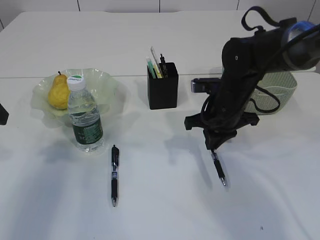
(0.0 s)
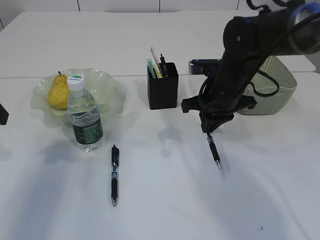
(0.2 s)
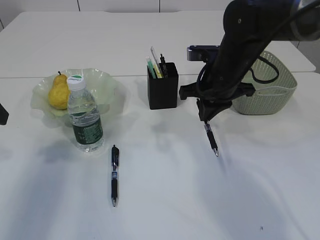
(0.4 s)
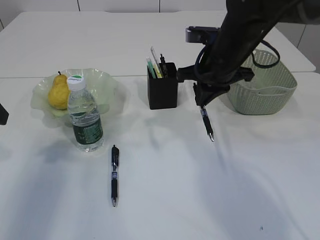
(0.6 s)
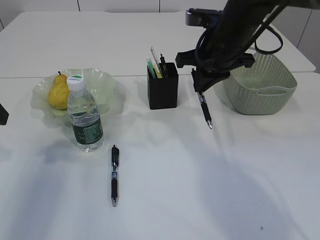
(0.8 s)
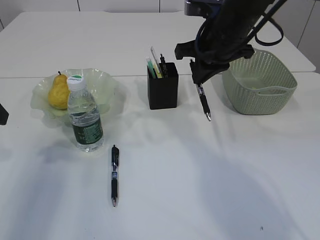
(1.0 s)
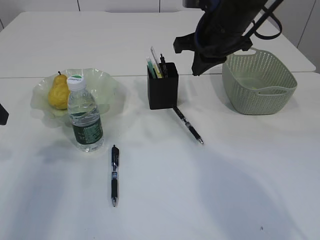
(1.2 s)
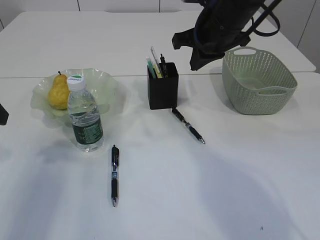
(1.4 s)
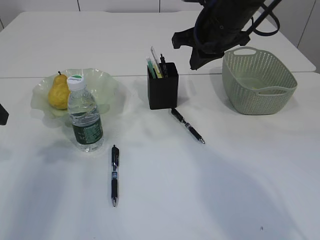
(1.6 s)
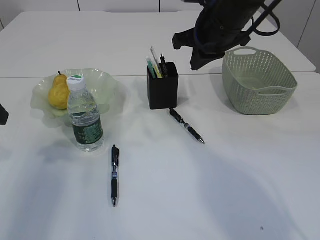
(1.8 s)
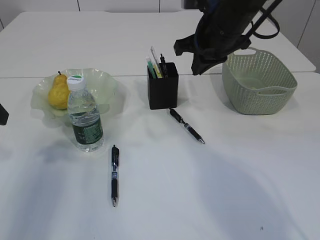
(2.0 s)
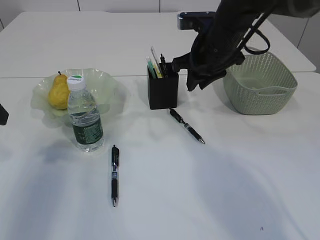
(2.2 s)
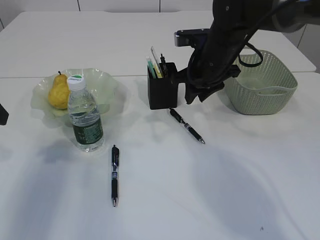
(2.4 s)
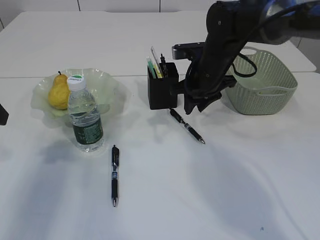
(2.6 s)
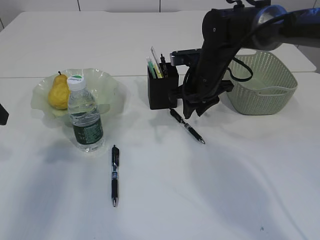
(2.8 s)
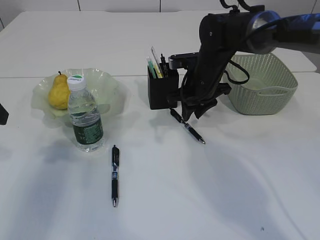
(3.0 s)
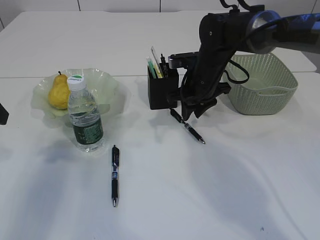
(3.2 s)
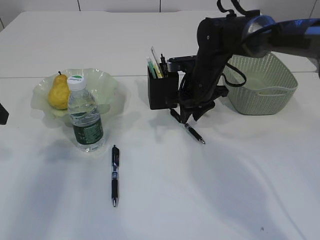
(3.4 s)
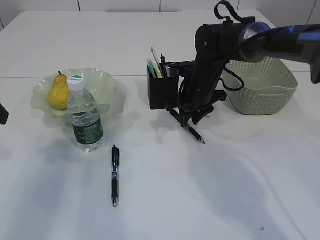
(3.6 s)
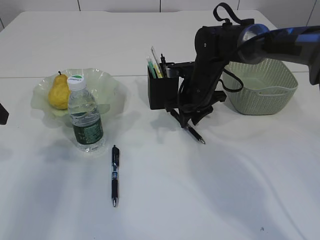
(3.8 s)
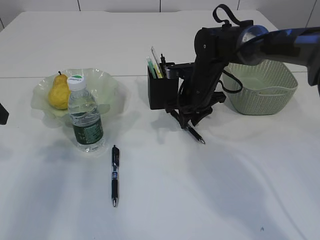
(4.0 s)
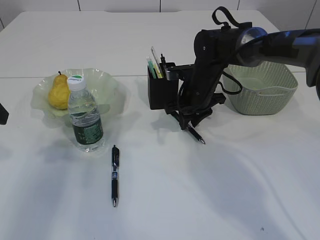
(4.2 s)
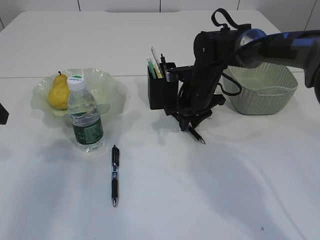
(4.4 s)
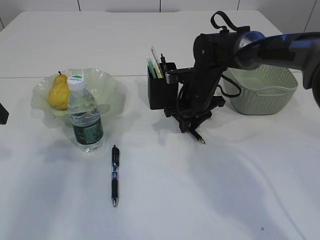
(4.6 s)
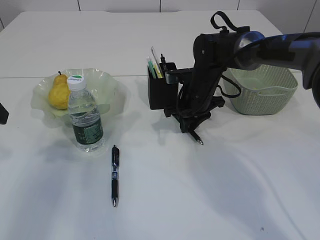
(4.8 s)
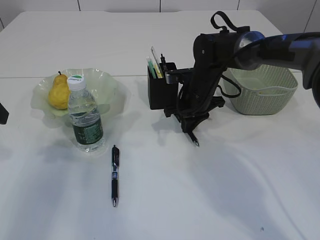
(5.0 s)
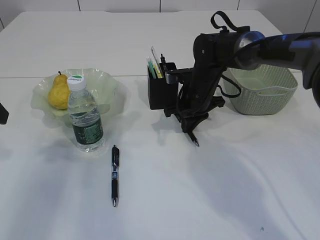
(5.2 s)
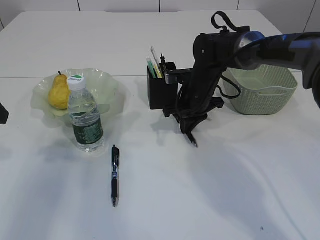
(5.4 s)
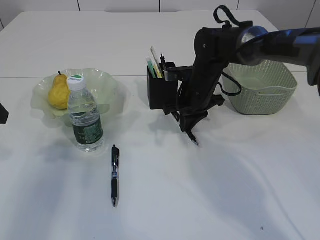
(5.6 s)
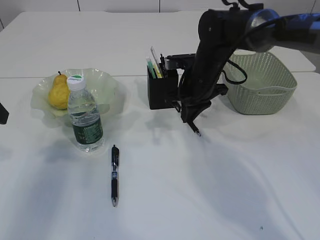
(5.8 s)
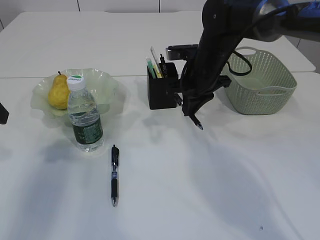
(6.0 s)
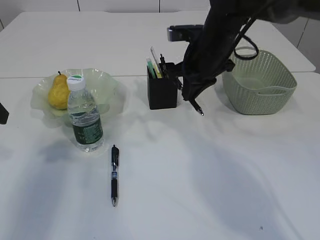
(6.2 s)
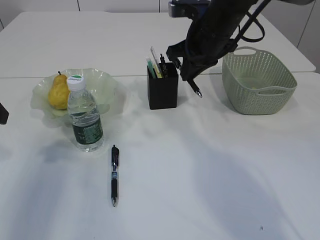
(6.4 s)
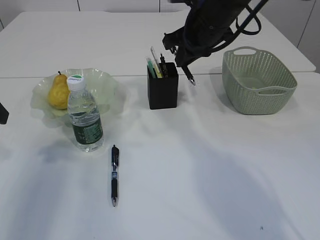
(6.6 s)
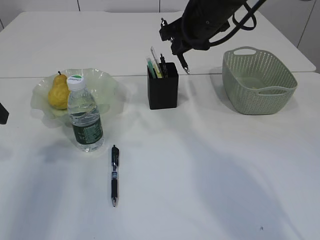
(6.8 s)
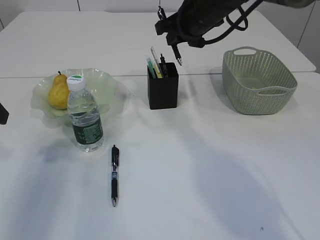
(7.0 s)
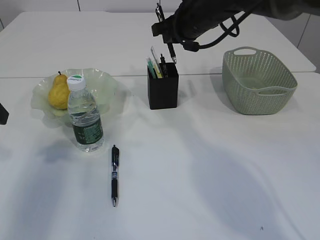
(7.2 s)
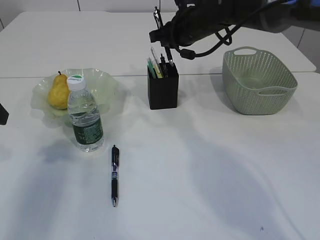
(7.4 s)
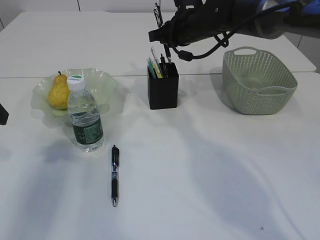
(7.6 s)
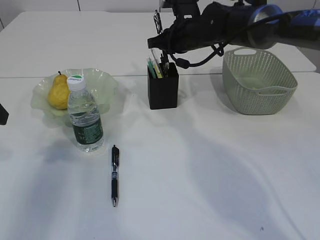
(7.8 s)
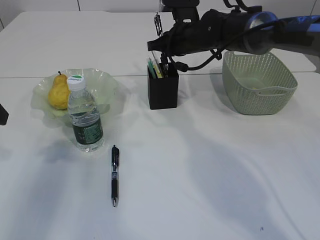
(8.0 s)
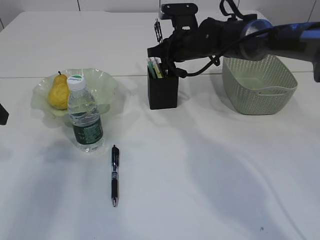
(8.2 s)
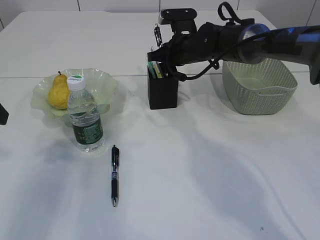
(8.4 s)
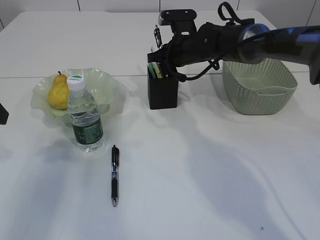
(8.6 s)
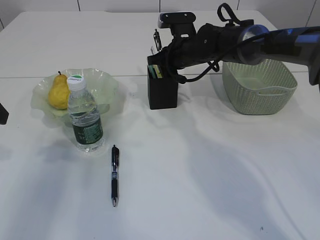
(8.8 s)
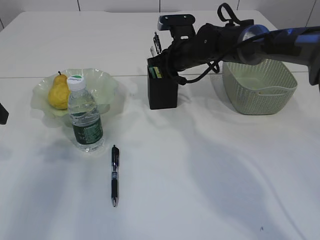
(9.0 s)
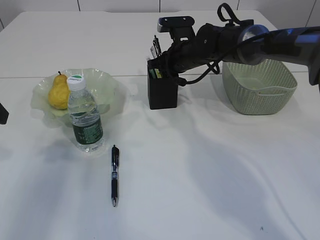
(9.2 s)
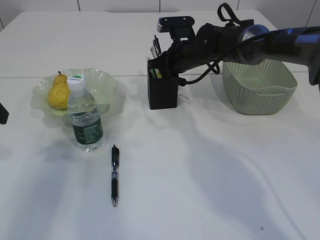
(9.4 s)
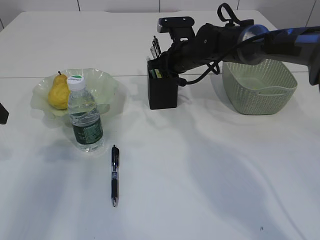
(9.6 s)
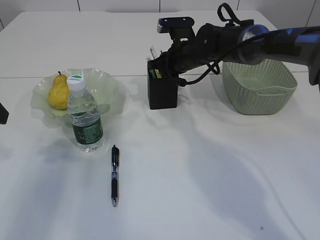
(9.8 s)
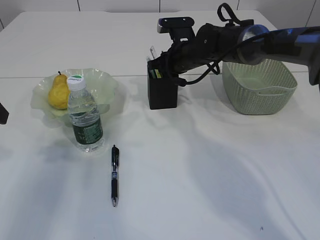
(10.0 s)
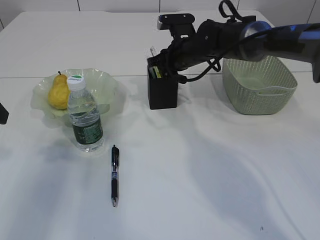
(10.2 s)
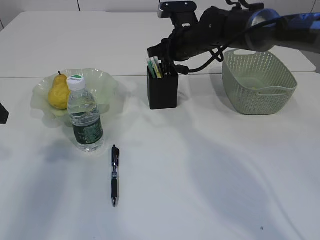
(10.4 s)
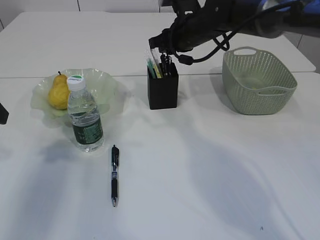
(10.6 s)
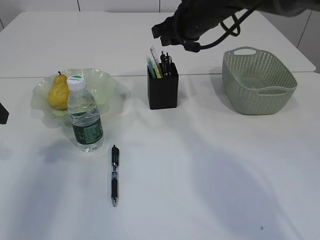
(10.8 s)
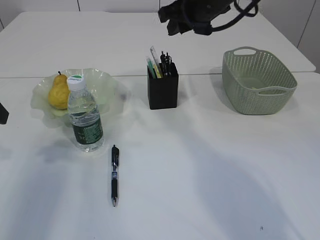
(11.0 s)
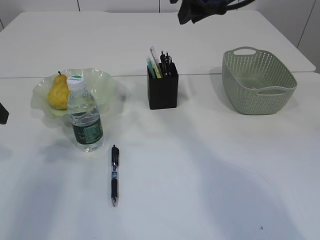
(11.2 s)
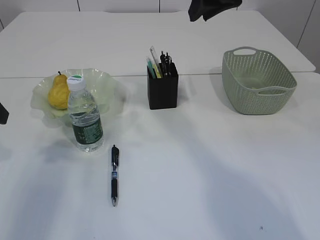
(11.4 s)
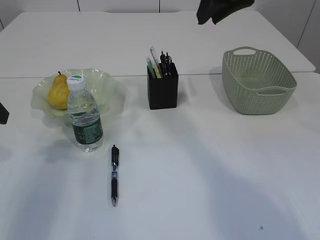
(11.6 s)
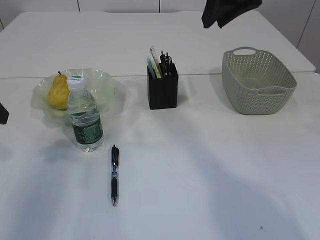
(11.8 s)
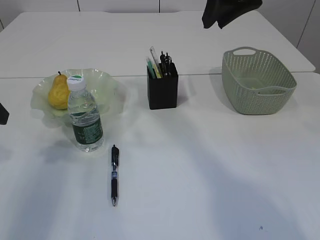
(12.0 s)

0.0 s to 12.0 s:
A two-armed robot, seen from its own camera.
Step, 0.0 to 5.8 s: Pick up the pen with right arm.
Step, 6.0 to 11.2 s: Place the pen into the pen holder.
0.0 to 1.6 s: The right gripper travels upward by approximately 15 cm.
1.6 to 3.0 s: The right gripper moves downward, approximately 10 cm, and opens its fingers.
3.0 to 4.4 s: The grippers make only small movements.
4.4 to 6.0 s: The right gripper heads upward, covering about 5 cm.
6.0 to 7.6 s: The right gripper is displaced forward by approximately 5 cm.
7.6 to 9.0 s: The right gripper travels downward by about 5 cm.
9.0 to 10.4 s: There are only small adjustments of the grippers.
10.4 to 12.0 s: The right gripper moves upward and backward, about 20 cm.

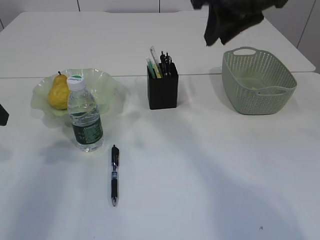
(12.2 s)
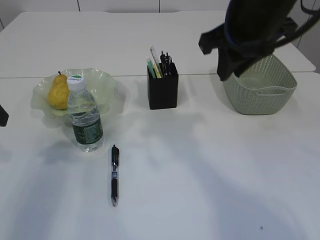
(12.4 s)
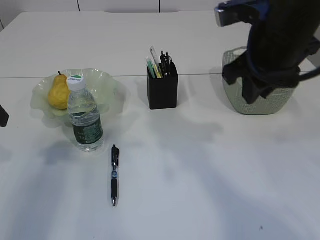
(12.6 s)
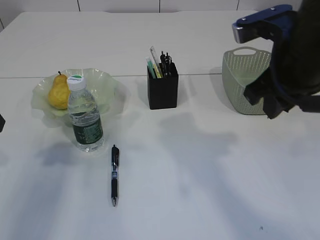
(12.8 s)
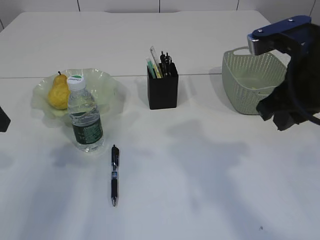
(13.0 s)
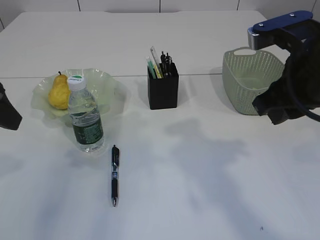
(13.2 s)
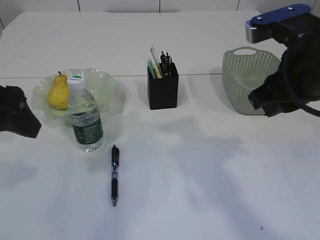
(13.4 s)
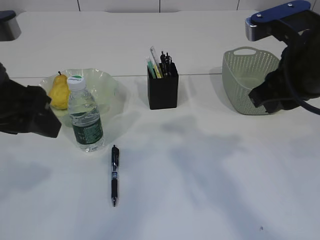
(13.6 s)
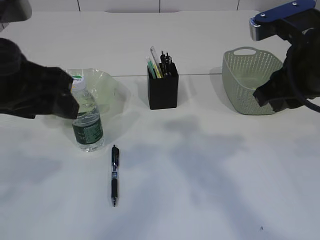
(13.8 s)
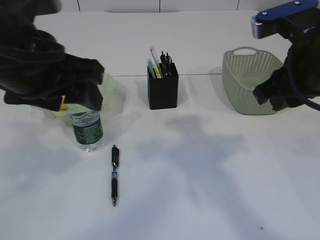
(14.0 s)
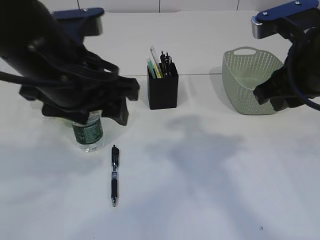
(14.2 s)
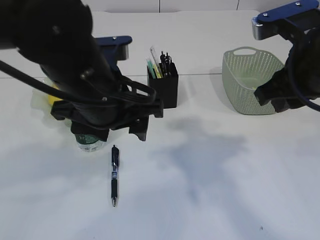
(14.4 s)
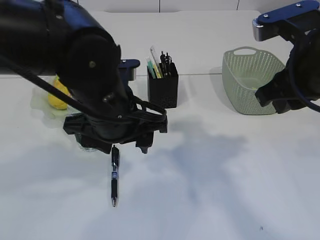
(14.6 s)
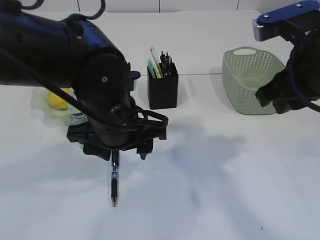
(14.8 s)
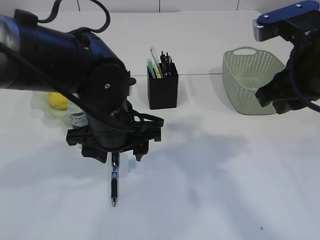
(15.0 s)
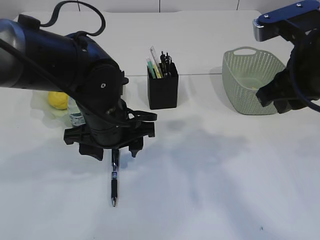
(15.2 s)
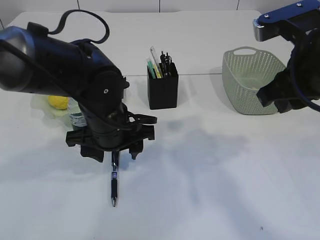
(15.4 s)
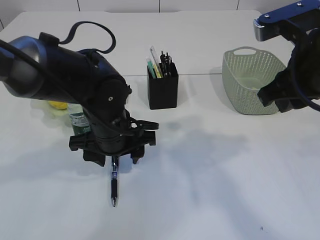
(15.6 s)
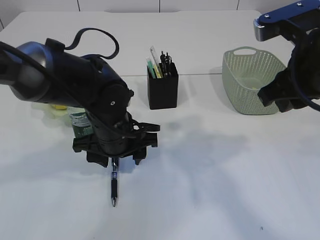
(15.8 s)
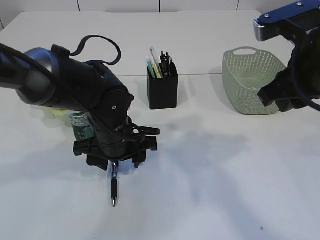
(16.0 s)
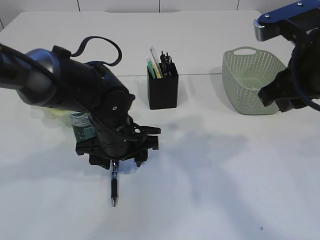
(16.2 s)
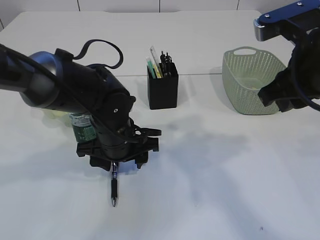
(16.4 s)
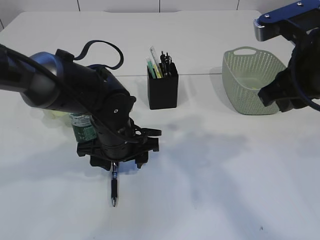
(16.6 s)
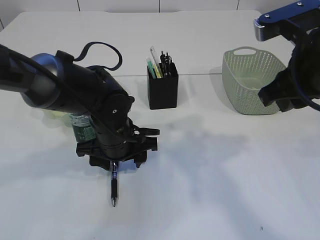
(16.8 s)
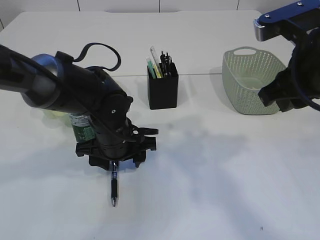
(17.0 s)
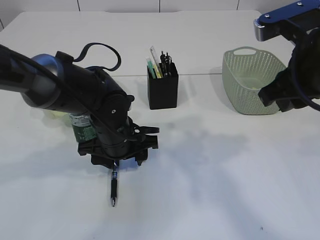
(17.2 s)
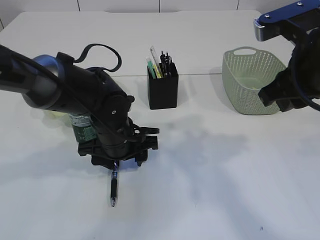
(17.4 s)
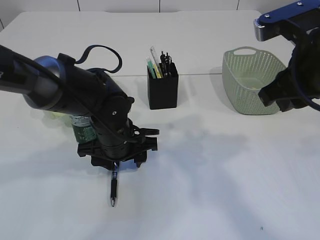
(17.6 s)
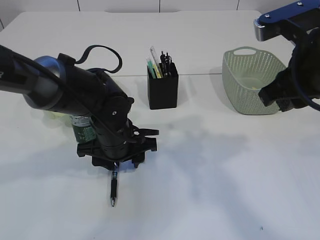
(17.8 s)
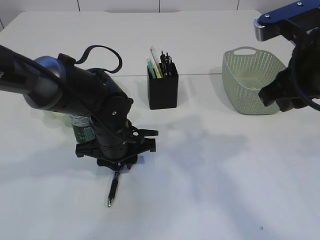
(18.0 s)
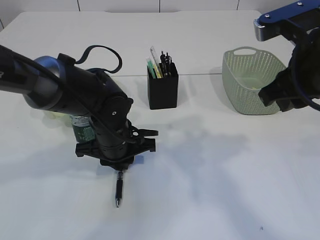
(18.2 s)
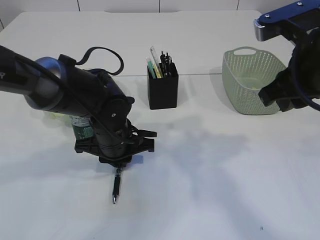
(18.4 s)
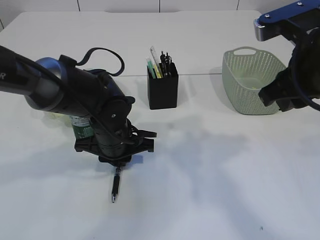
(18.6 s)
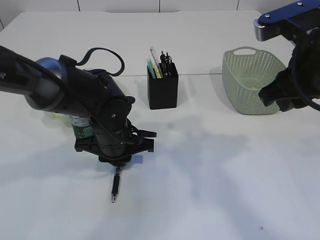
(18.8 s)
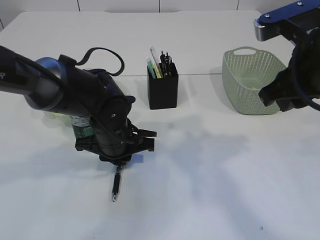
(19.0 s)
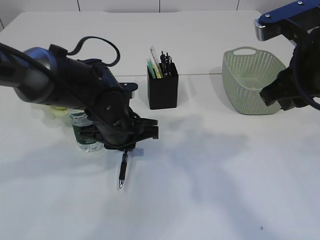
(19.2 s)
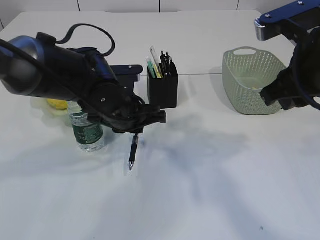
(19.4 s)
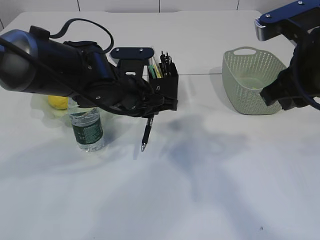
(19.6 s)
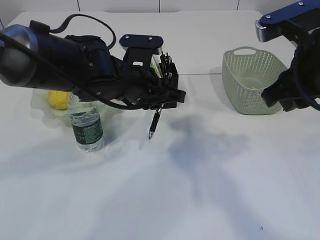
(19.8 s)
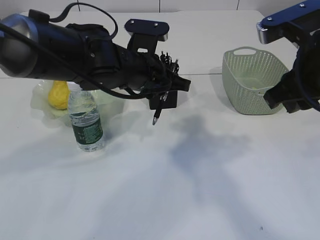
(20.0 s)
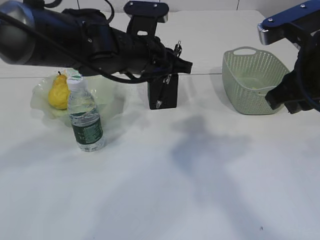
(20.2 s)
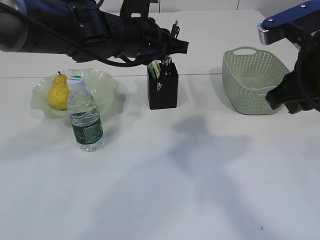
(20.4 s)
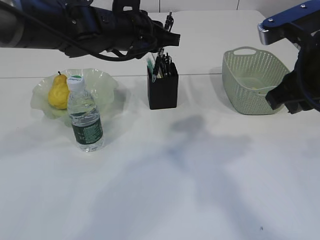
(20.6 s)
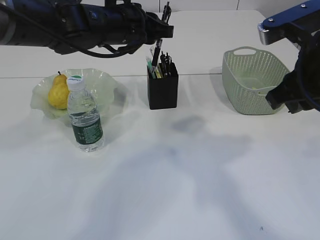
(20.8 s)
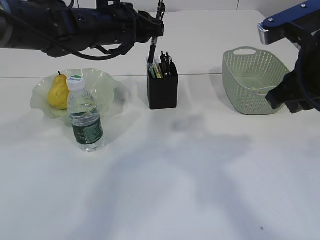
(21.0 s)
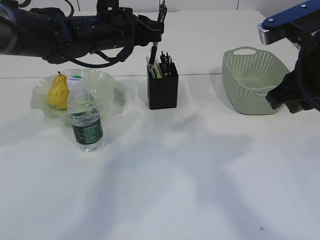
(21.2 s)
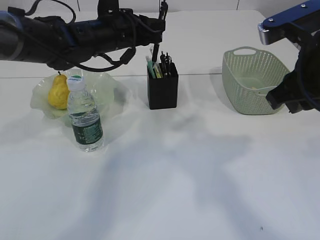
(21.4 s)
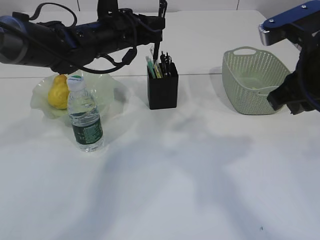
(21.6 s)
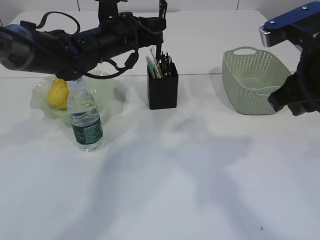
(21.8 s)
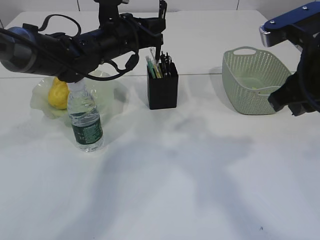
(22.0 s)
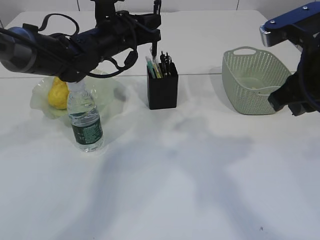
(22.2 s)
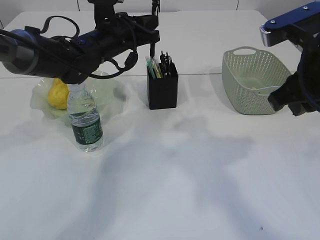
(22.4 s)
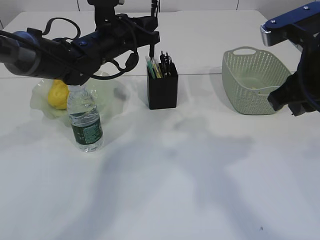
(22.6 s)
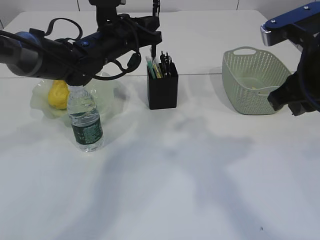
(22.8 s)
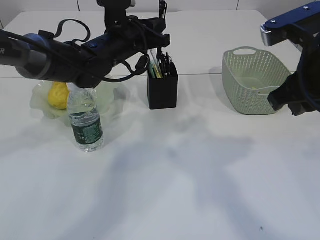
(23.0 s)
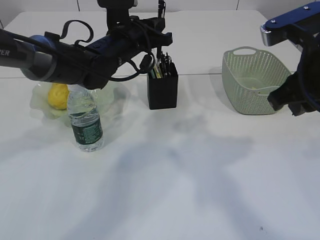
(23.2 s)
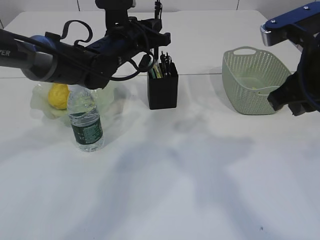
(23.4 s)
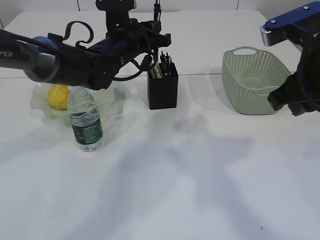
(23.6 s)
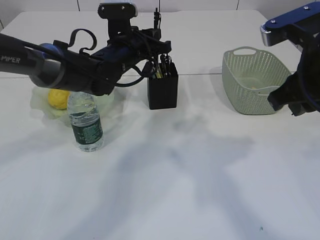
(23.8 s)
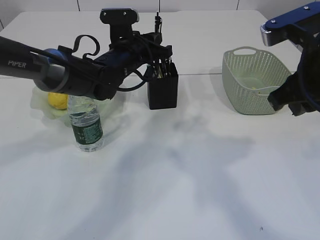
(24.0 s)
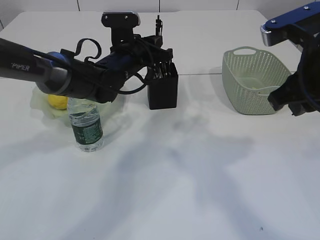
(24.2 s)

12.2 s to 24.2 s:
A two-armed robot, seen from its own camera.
Step, 12.2 to 19.6 s: Pick up the pen with right arm.
12.2 to 13.8 s: The right gripper moves backward, downward and to the right, roughly 10 cm. Meanwhile the left gripper is displaced to the right and backward by about 15 cm.
13.8 to 15.2 s: The left gripper moves downward, to the right and forward, some 20 cm.
15.2 to 16.6 s: The left gripper changes place by about 5 cm.
16.6 to 18.2 s: The left gripper closes its fingers.
18.2 to 19.8 s: The left gripper shifts approximately 10 cm upward.
19.8 to 21.2 s: The left gripper heads forward, covering some 10 cm.
21.2 to 22.6 s: There are only small adjustments of the grippers.
22.6 to 24.2 s: There are only small adjustments of the grippers.
